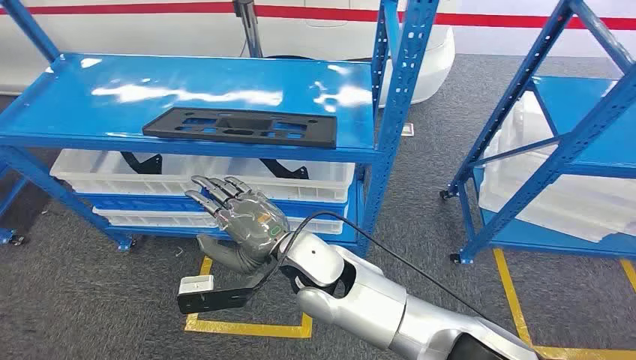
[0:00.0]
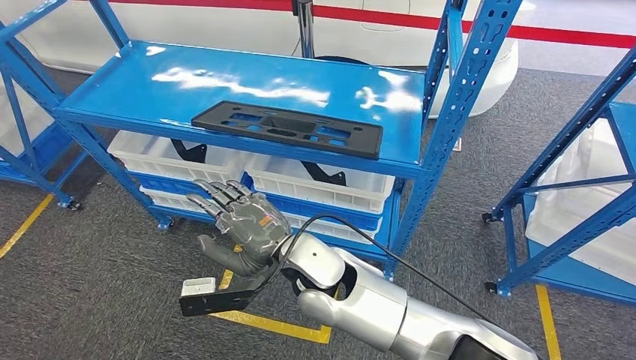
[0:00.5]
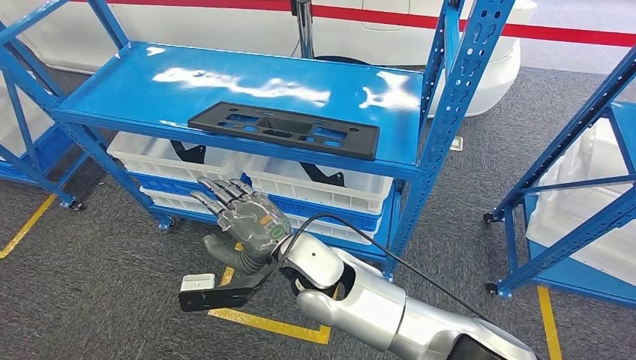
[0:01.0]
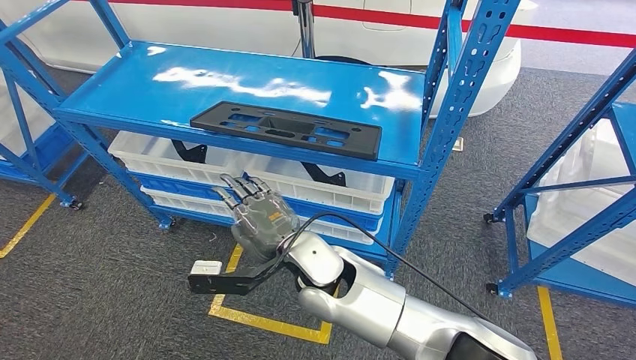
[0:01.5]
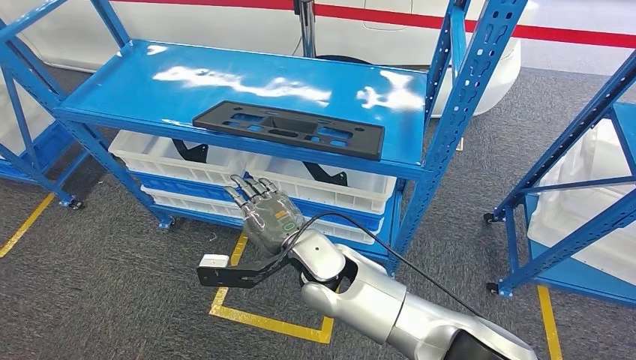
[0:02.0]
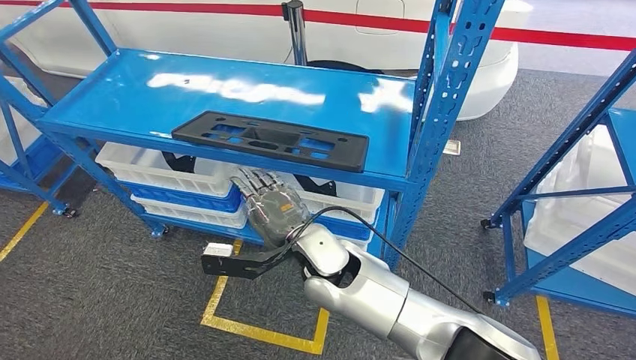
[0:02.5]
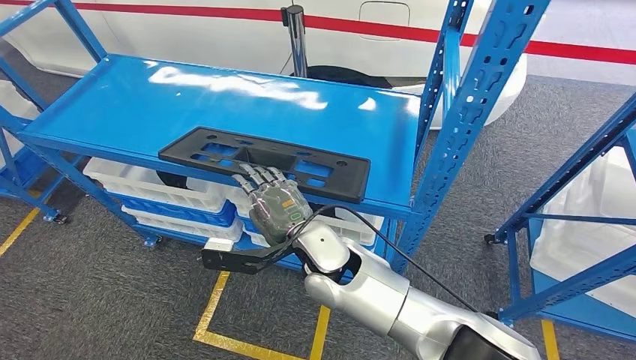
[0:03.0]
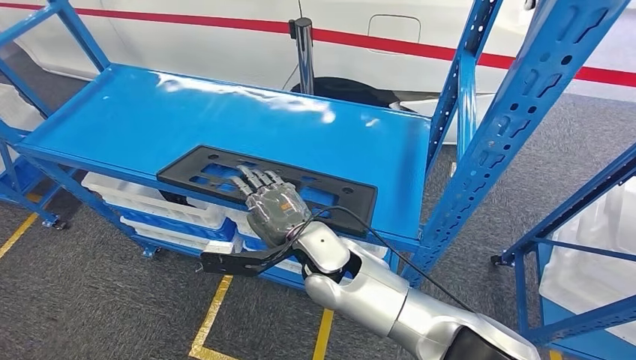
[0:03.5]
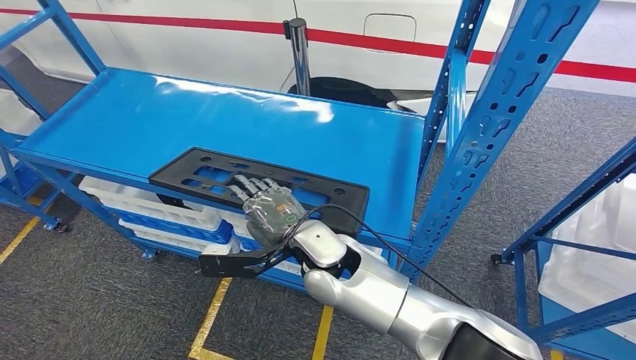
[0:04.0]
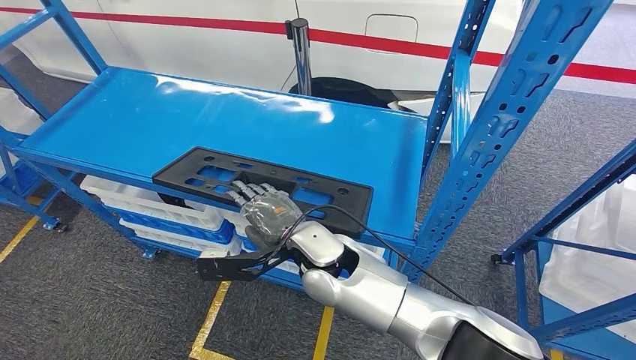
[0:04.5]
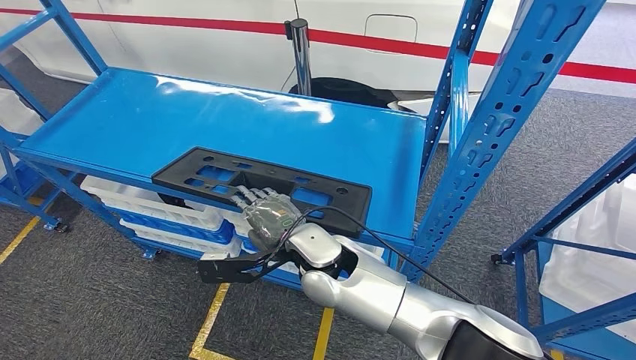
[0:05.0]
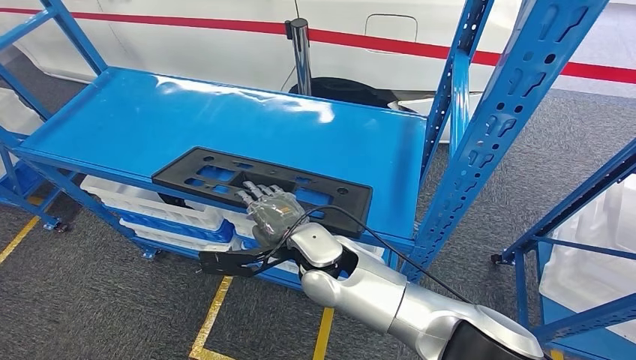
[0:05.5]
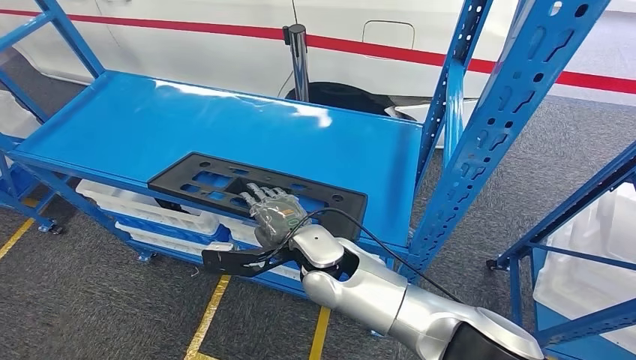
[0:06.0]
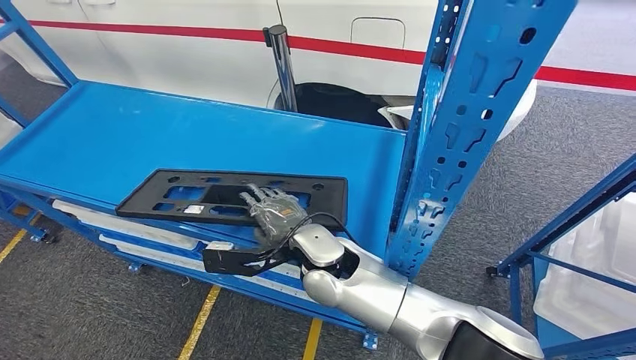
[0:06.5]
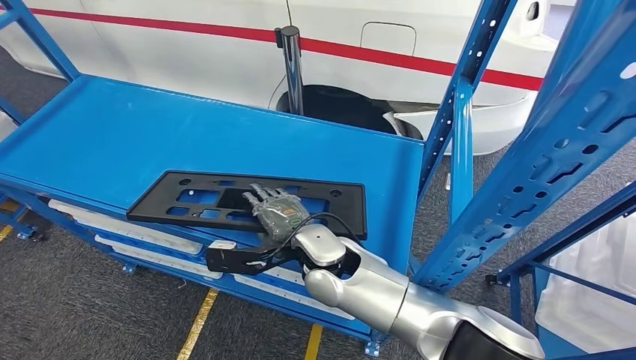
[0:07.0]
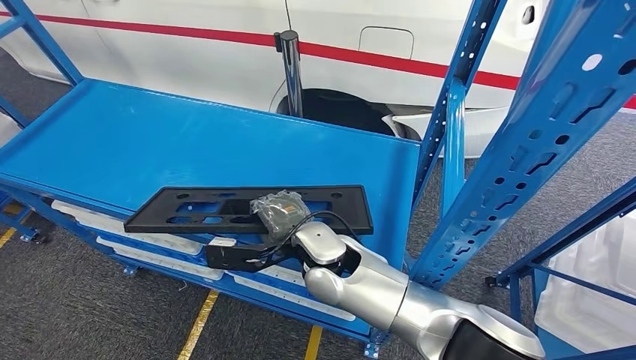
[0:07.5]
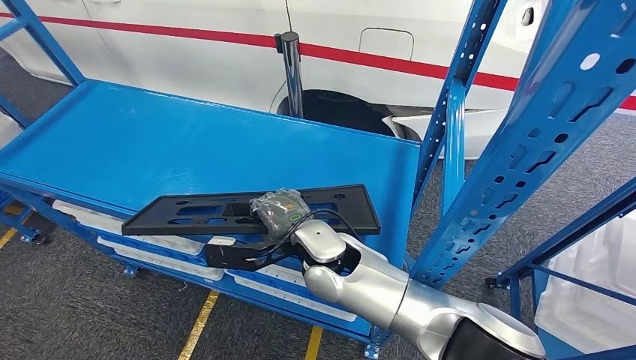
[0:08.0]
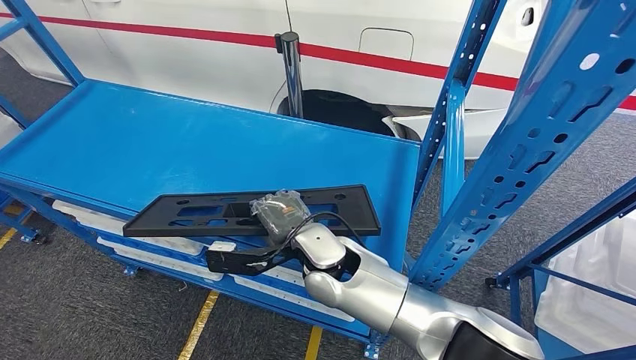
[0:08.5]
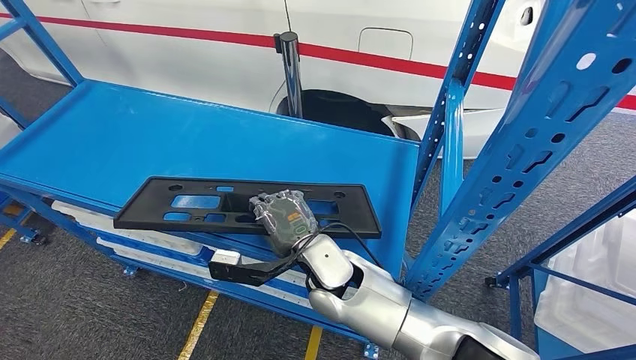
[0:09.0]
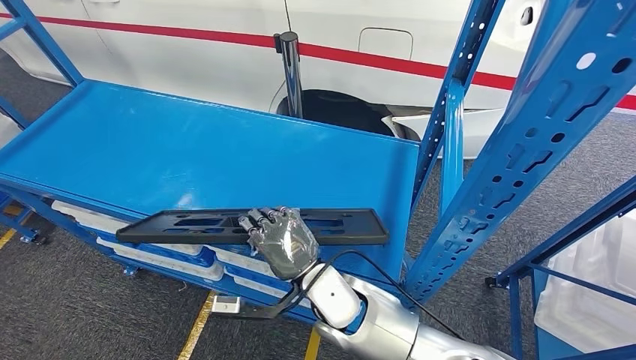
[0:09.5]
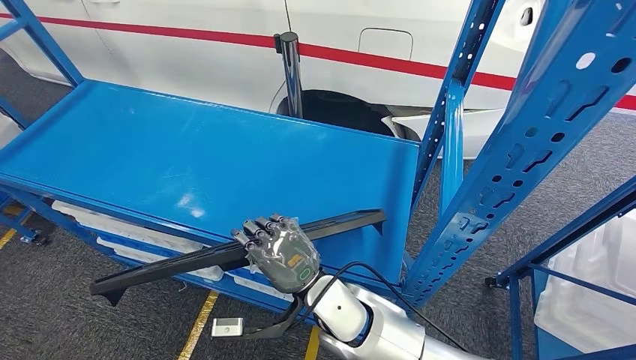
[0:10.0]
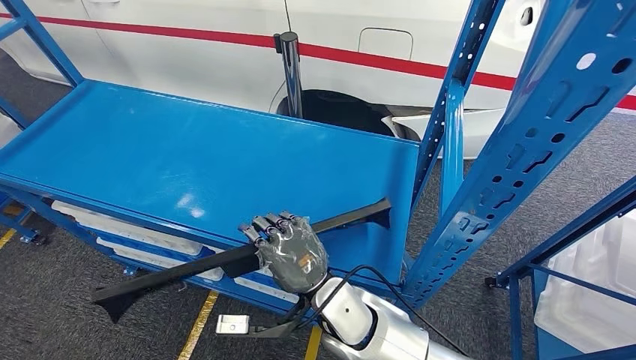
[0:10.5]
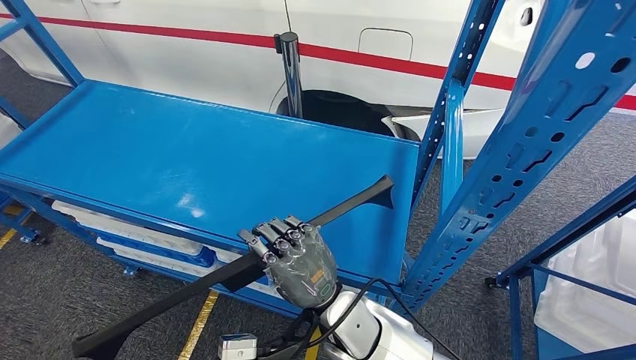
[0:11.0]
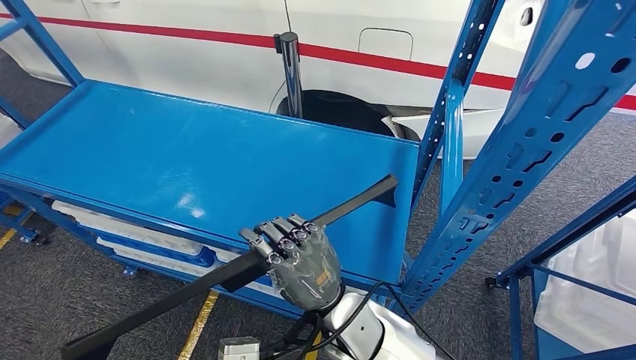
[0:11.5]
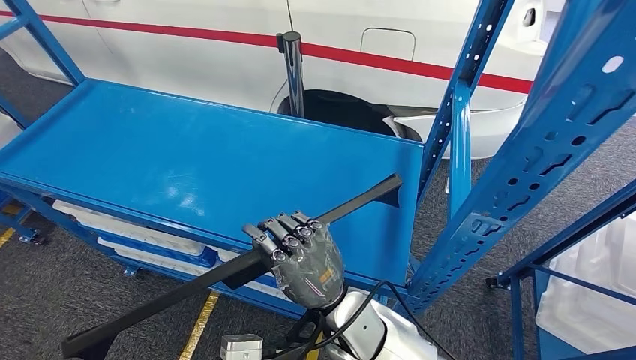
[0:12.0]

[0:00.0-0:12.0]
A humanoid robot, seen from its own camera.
0:08.0 to 0:10.0: The right hand ends up roughly 5 cm from where it was.

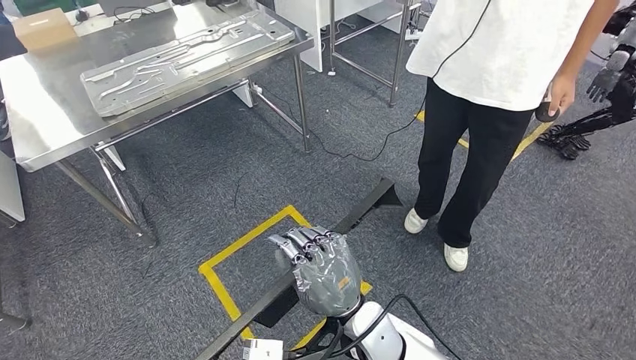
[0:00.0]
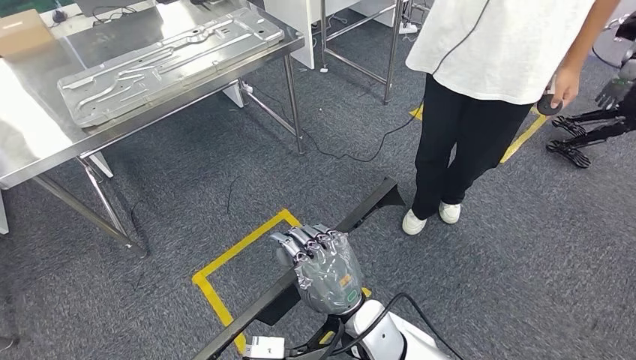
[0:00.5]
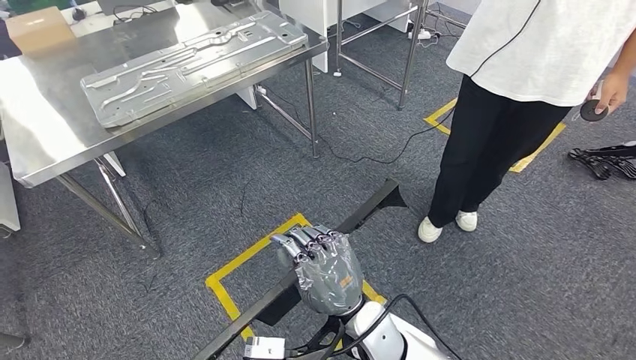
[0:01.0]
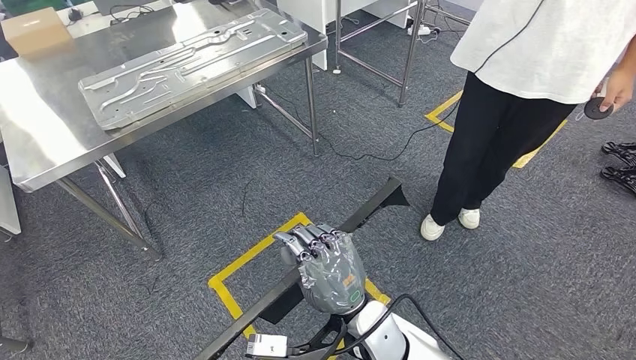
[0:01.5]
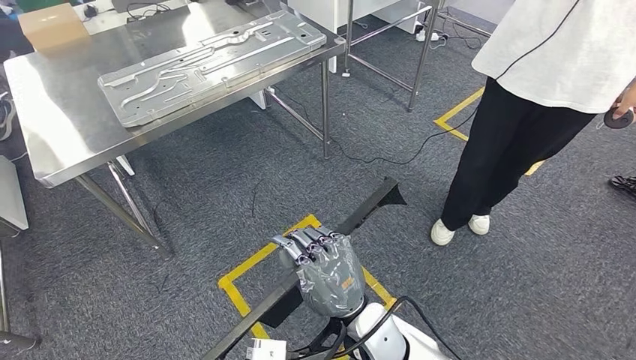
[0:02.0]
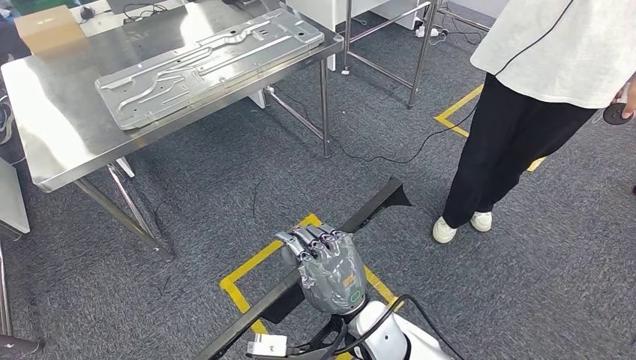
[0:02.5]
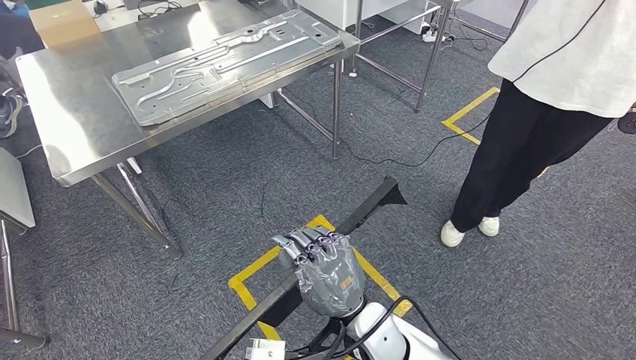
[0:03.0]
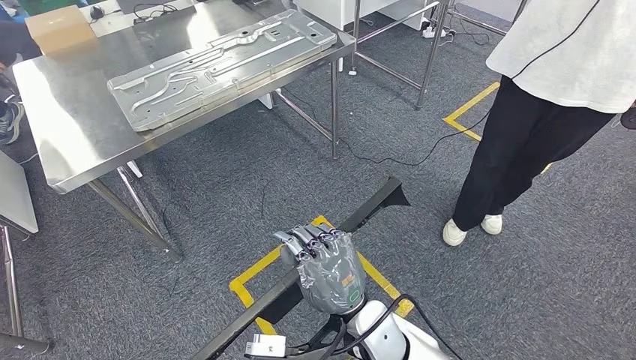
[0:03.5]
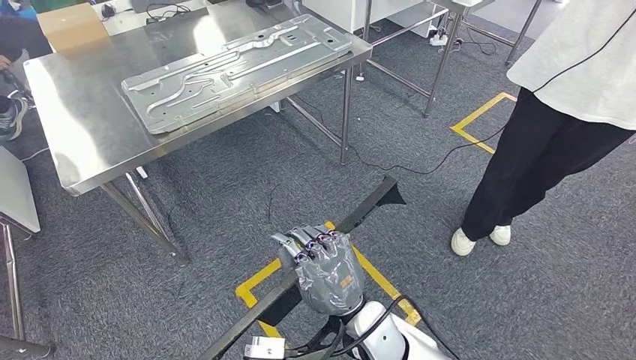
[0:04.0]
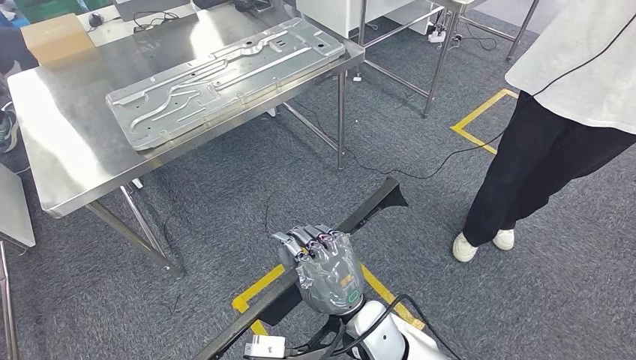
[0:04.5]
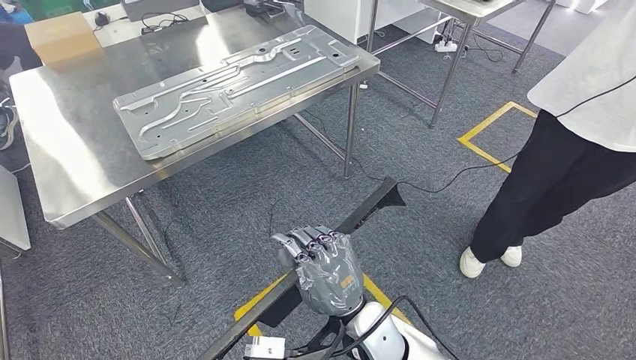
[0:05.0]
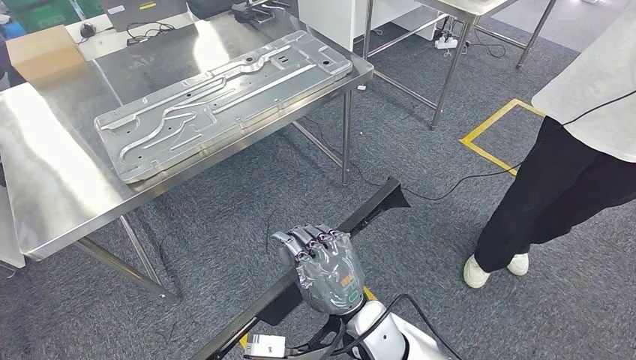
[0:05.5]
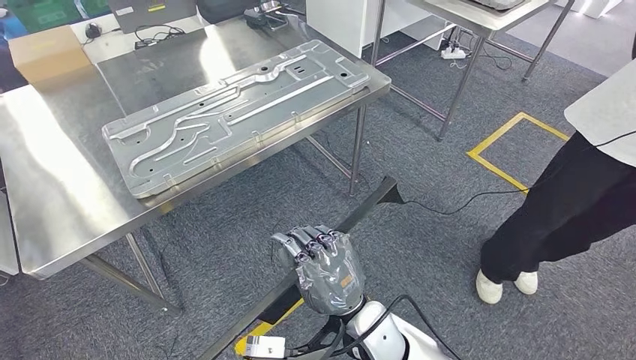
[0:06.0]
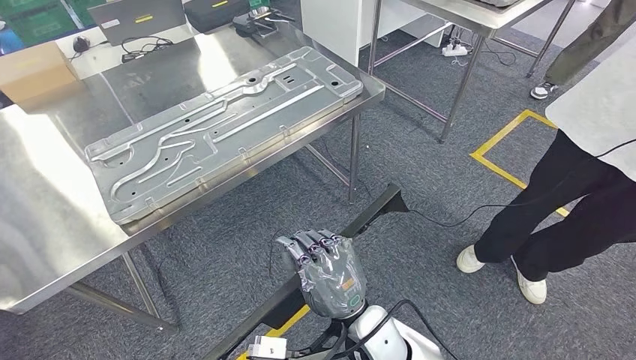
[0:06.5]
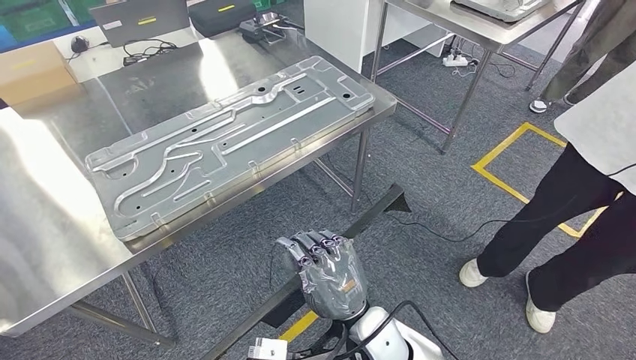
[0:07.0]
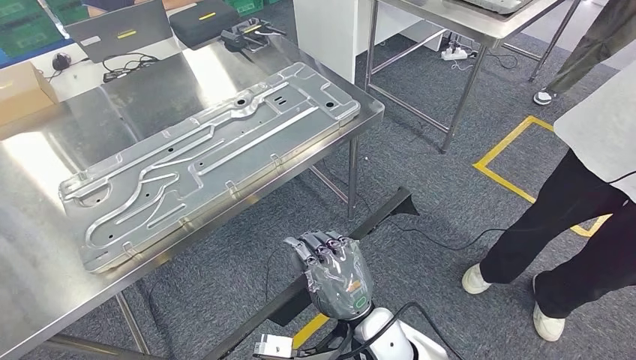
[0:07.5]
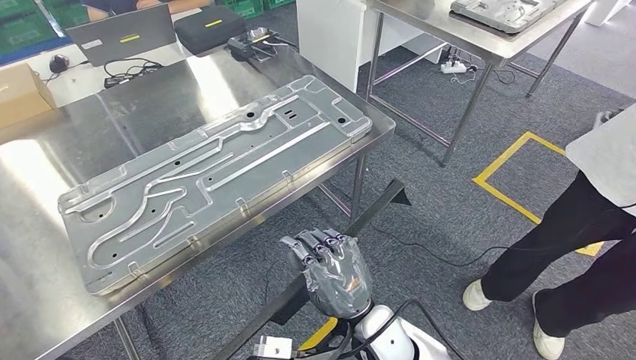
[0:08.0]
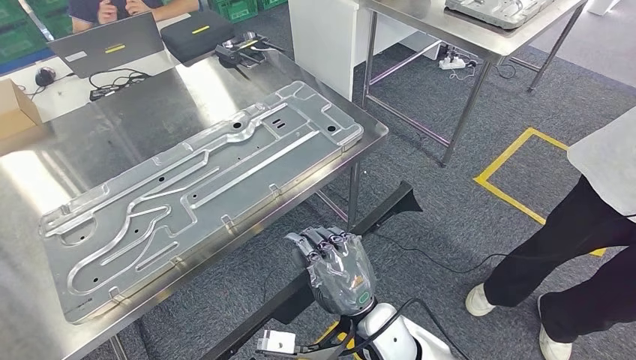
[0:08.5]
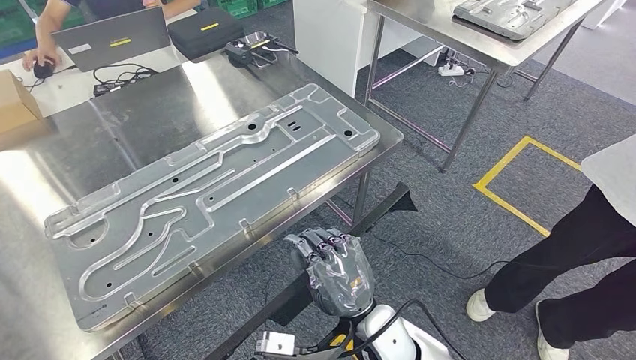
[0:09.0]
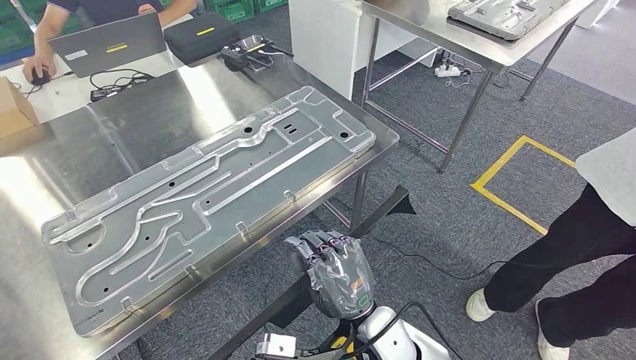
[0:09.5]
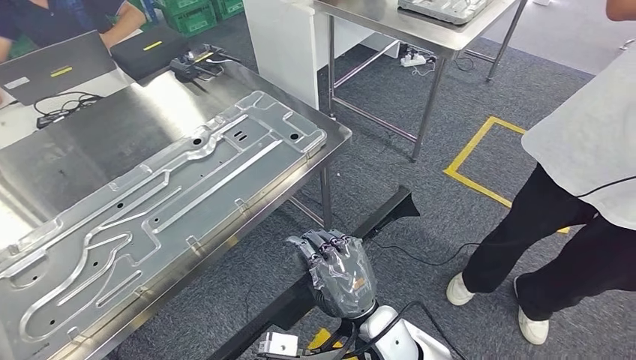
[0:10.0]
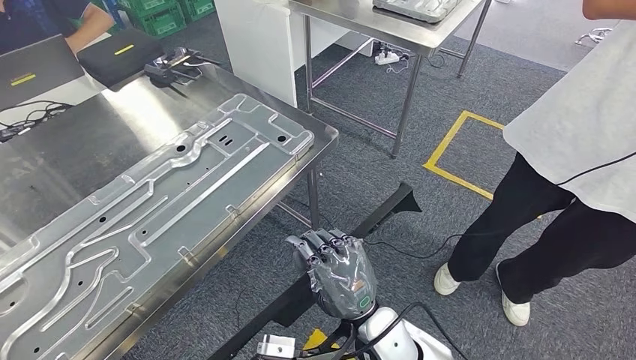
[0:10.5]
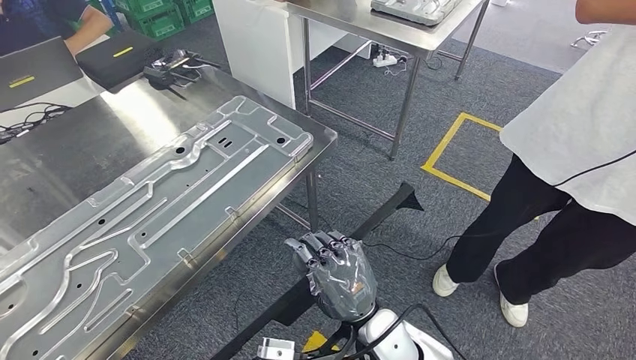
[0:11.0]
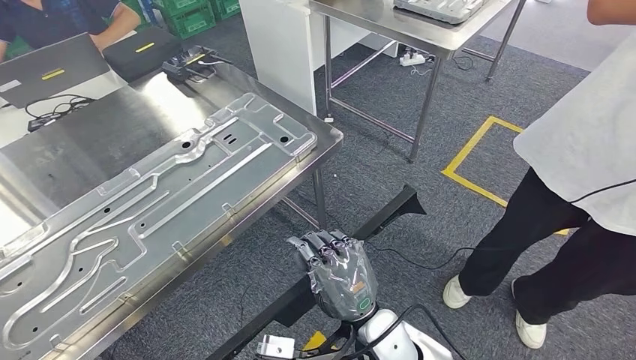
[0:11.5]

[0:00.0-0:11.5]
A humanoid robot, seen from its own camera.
Step, 0:00.0 to 0:08.5: Move the large parts to the workbench.
